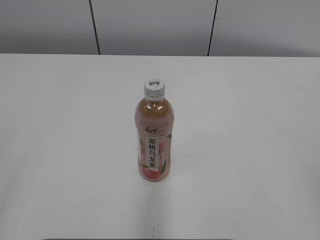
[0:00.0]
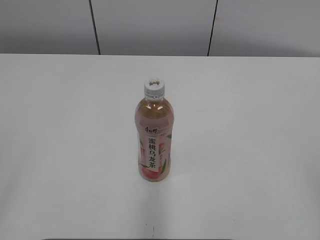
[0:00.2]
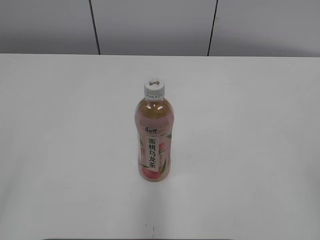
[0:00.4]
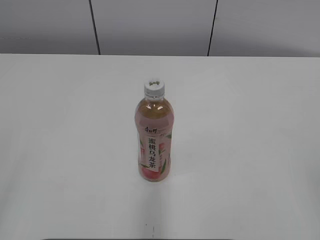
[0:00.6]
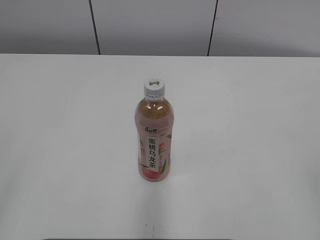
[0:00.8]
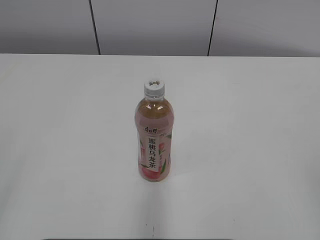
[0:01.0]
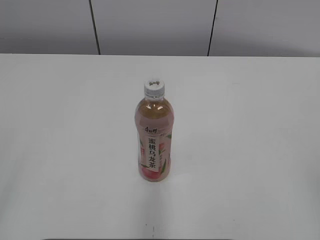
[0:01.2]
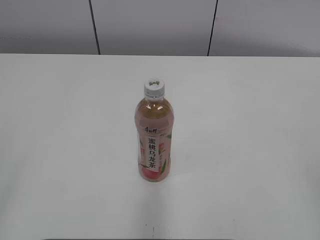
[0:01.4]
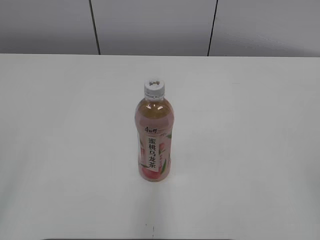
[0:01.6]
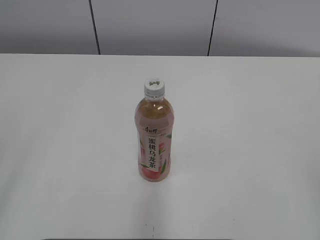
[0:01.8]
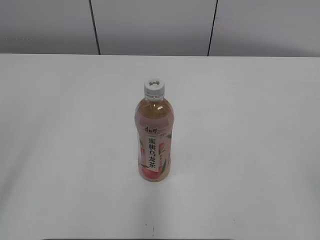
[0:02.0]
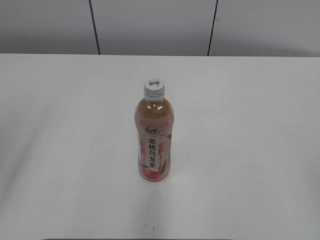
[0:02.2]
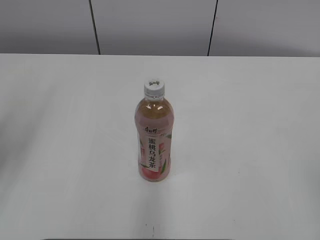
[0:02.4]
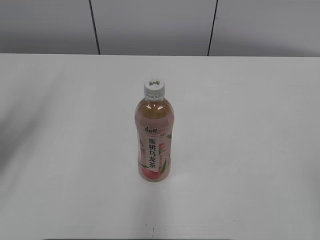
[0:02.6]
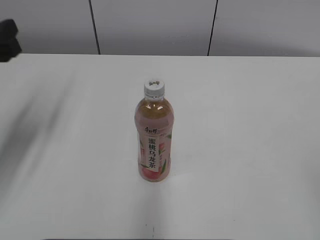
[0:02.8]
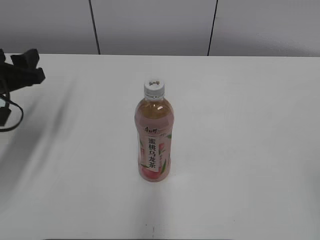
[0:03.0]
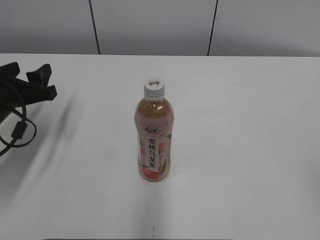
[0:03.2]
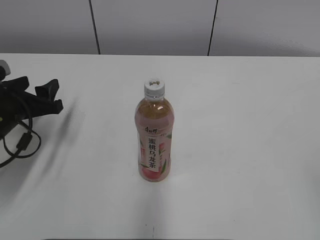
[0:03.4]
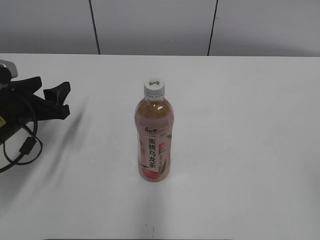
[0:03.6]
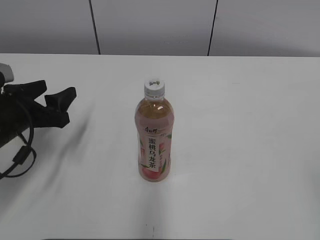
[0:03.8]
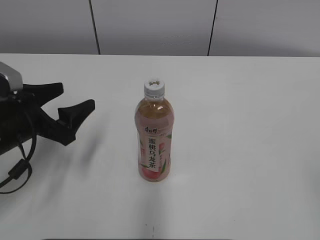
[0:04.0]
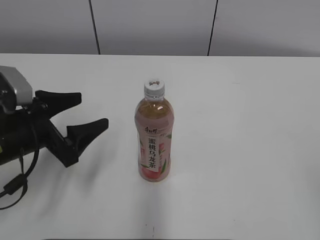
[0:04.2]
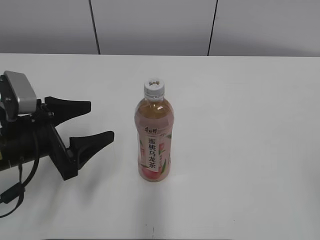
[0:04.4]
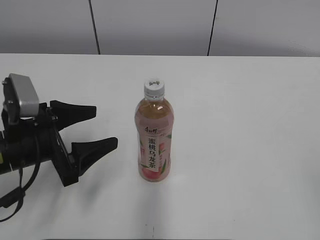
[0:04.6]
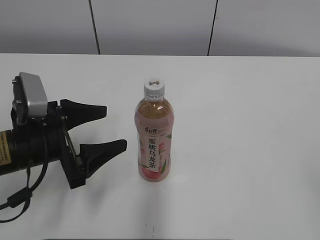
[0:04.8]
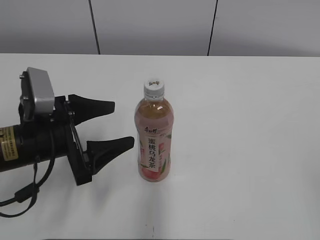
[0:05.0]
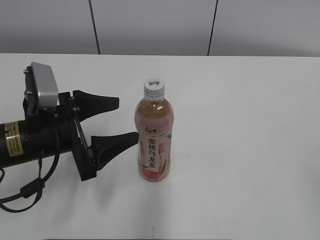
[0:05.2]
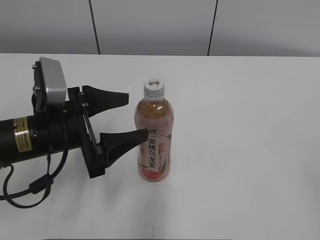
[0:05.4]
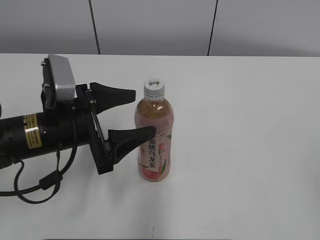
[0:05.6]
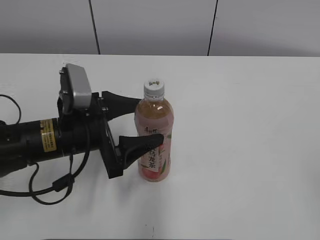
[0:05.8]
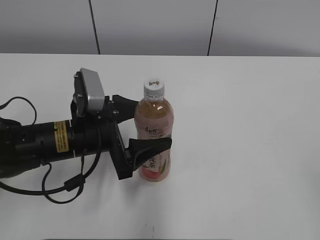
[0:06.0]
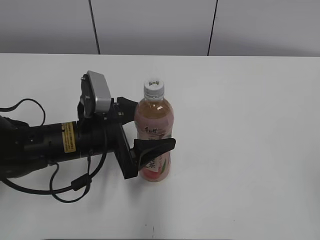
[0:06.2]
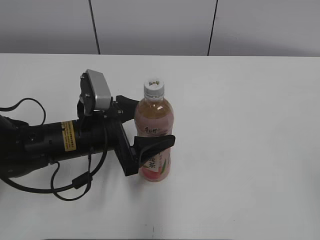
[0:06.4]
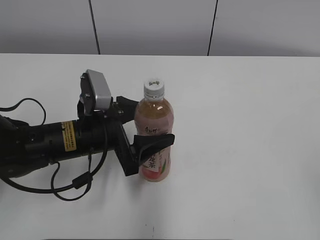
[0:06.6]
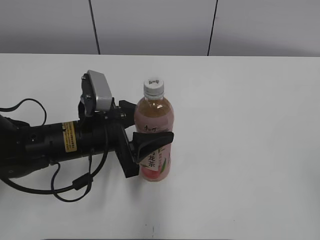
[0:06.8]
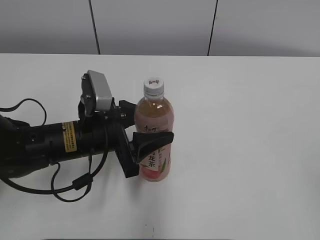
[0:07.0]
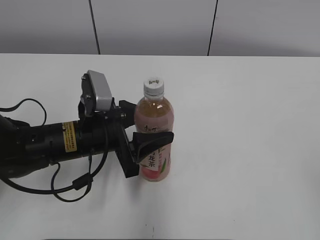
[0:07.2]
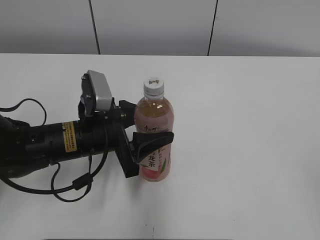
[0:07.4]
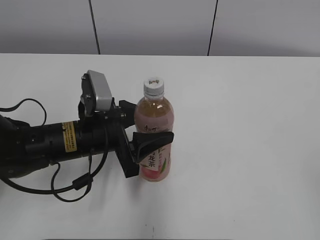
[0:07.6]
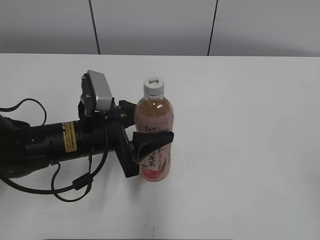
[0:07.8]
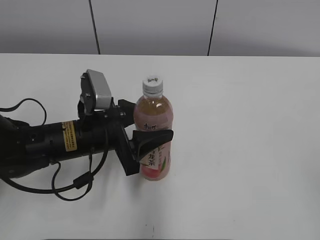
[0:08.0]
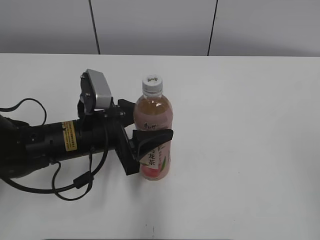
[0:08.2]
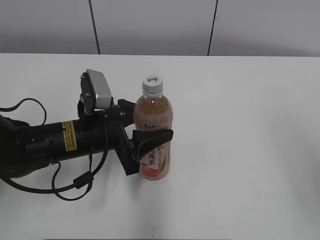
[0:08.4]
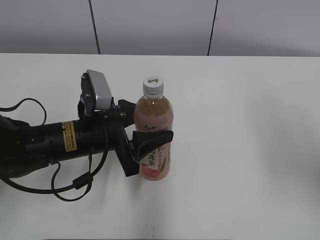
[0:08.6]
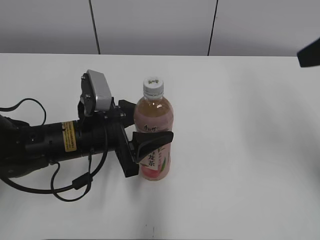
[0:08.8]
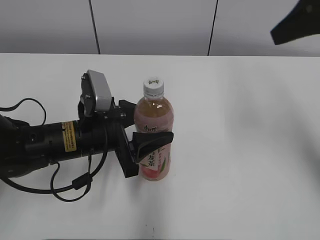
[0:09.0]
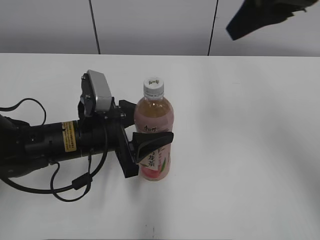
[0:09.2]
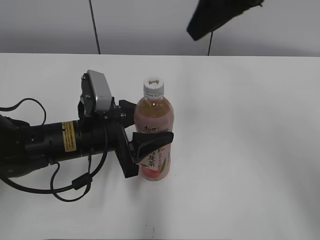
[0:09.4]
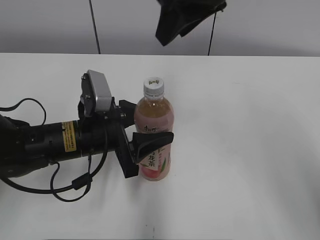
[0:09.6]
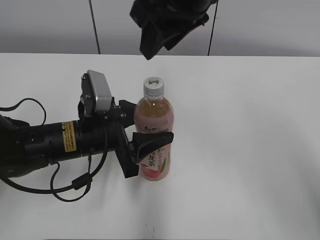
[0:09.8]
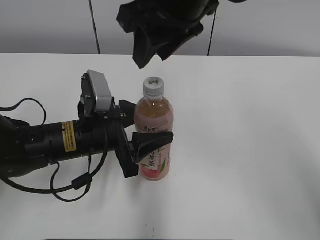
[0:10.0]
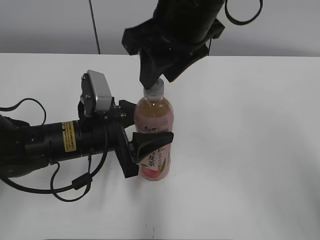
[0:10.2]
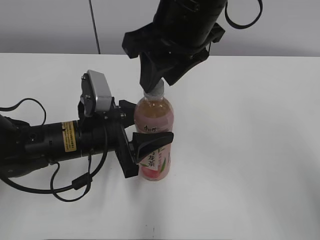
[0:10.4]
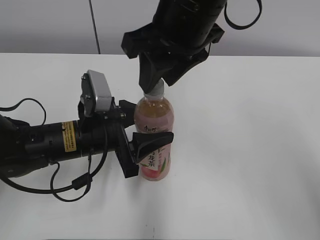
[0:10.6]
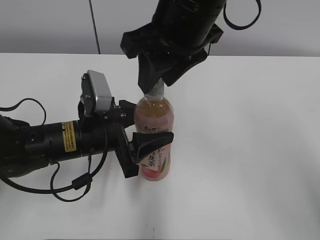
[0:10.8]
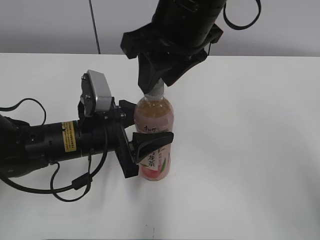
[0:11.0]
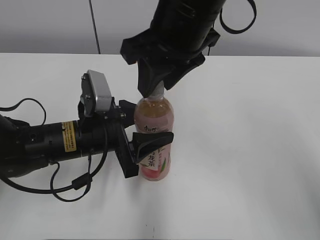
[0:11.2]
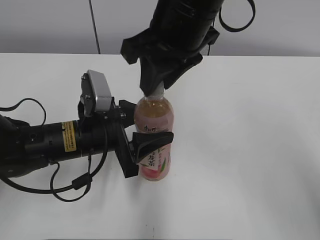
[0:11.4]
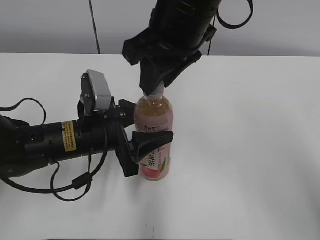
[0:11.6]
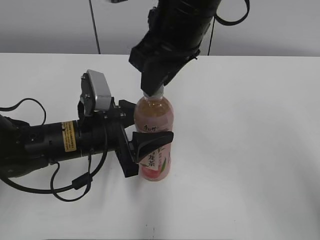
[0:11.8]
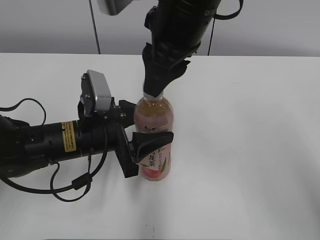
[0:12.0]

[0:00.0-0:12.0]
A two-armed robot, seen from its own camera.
Step, 0:00.0 to 0:07.0: Grab the Peach Oolong Tea with the left hand.
0:01.6 to 0:03.0: The left gripper heads forward, covering approximately 30 cm.
0:03.0 to 0:04.4: The left gripper goes roughly 10 cm to the right and backward, and opens its fingers.
0:04.4 to 0:06.0: The left gripper shifts about 10 cm to the right.
0:06.0 to 0:07.6: The left gripper closes up.
0:07.6 to 0:09.0: The right gripper goes roughly 30 cm forward, and closes its fingers.
0:09.0 to 0:10.4: The right gripper shifts roughly 20 cm to the left.

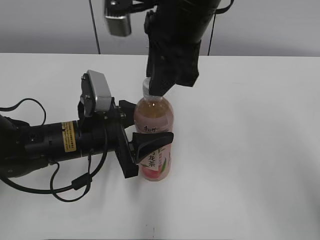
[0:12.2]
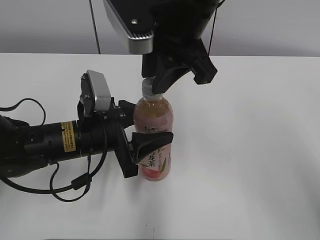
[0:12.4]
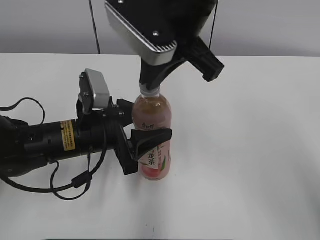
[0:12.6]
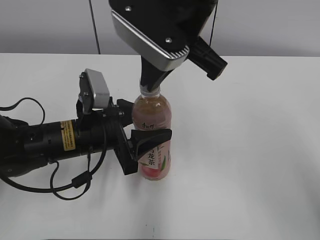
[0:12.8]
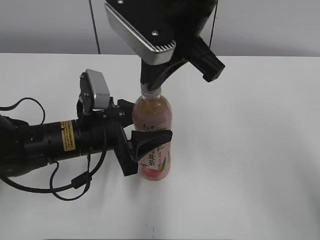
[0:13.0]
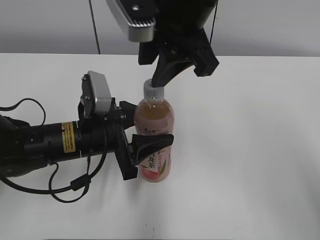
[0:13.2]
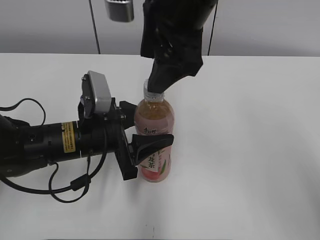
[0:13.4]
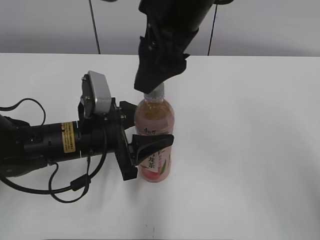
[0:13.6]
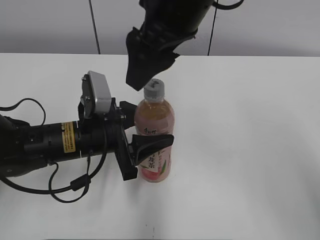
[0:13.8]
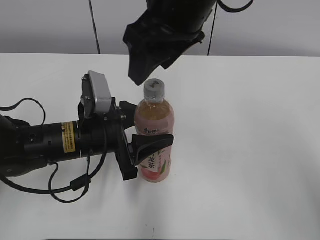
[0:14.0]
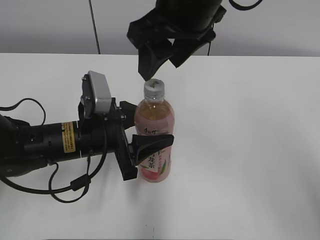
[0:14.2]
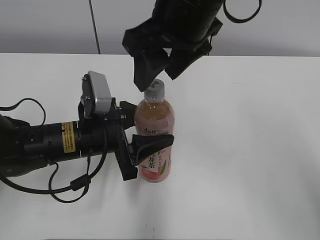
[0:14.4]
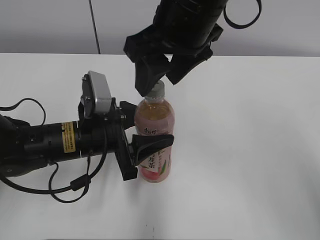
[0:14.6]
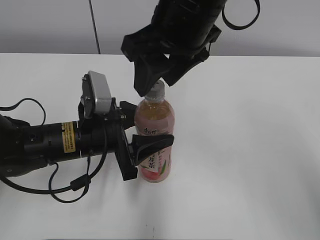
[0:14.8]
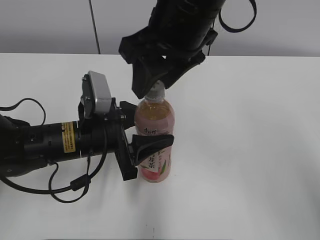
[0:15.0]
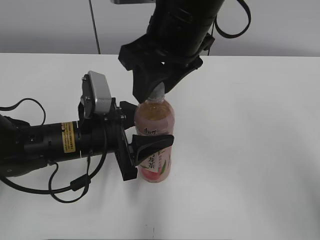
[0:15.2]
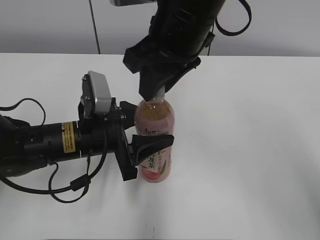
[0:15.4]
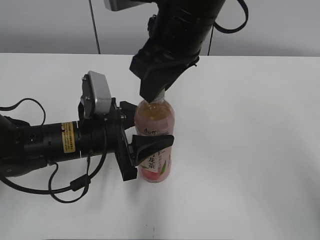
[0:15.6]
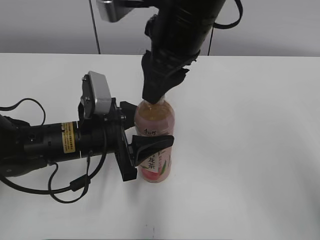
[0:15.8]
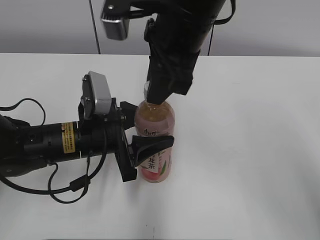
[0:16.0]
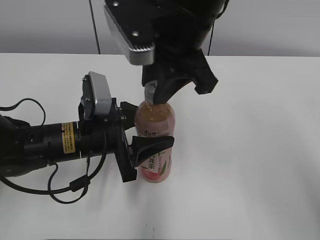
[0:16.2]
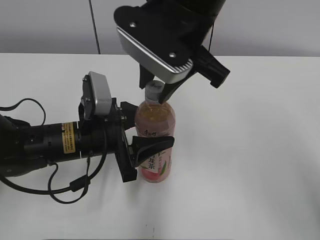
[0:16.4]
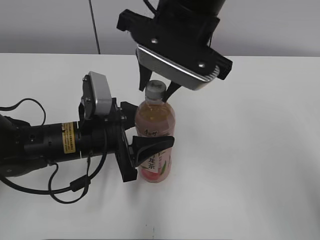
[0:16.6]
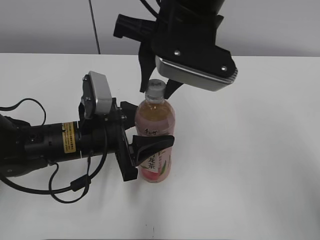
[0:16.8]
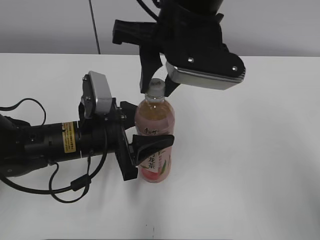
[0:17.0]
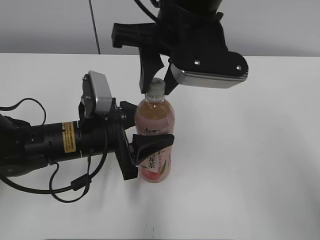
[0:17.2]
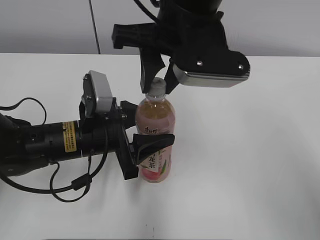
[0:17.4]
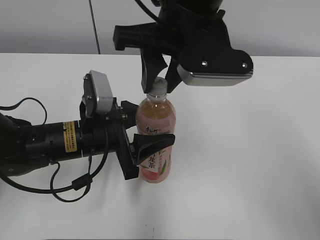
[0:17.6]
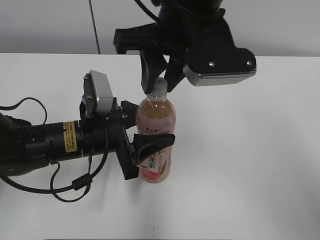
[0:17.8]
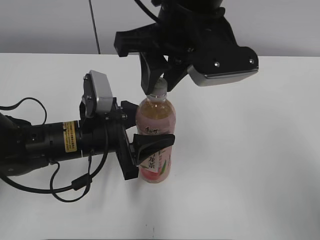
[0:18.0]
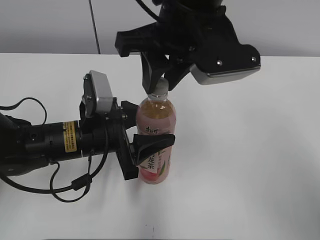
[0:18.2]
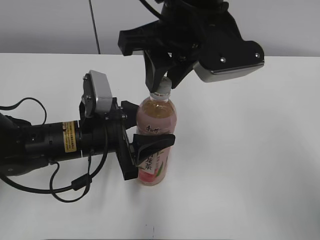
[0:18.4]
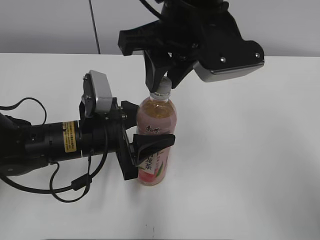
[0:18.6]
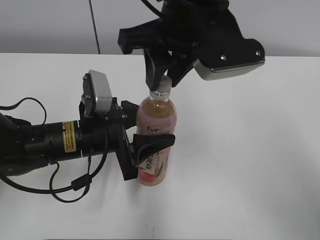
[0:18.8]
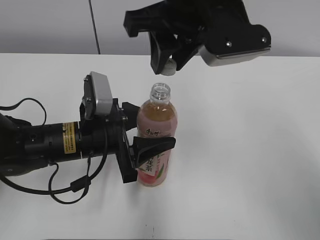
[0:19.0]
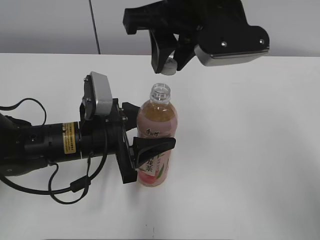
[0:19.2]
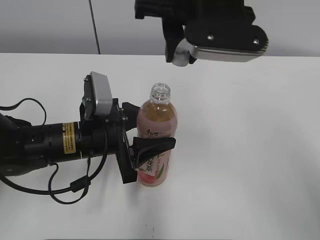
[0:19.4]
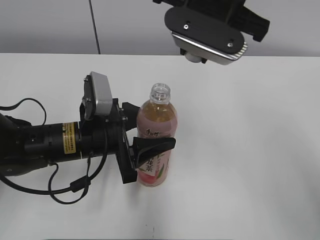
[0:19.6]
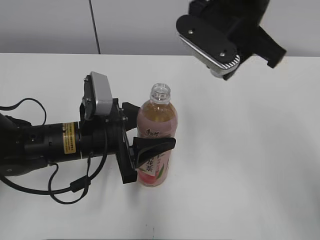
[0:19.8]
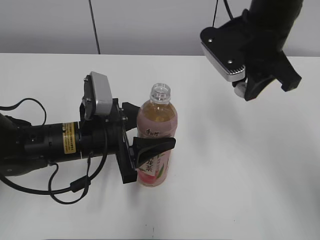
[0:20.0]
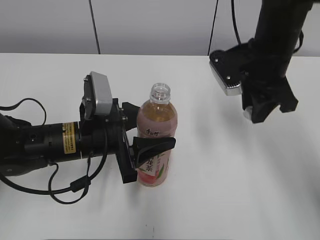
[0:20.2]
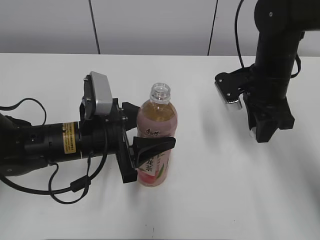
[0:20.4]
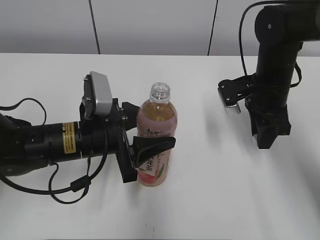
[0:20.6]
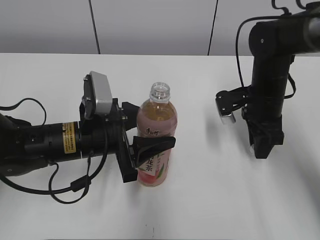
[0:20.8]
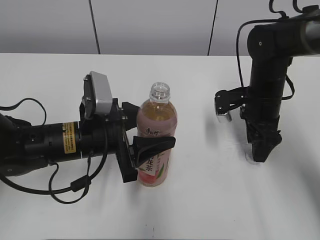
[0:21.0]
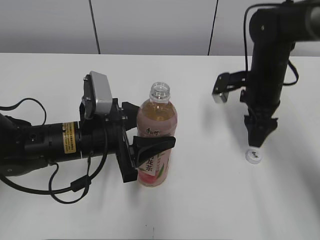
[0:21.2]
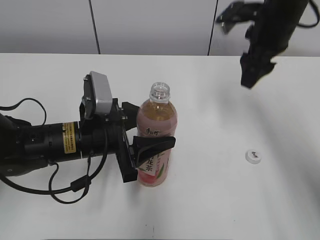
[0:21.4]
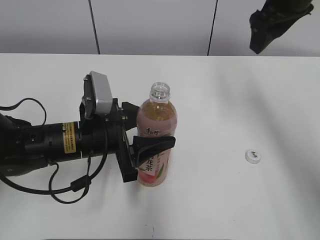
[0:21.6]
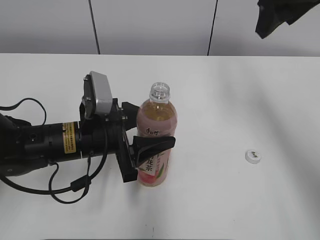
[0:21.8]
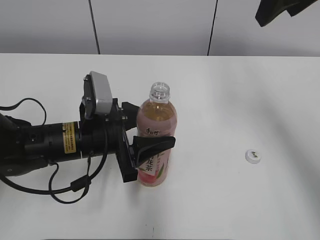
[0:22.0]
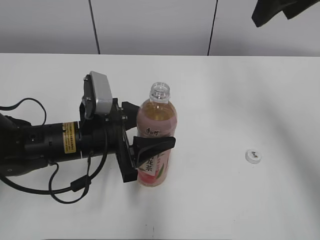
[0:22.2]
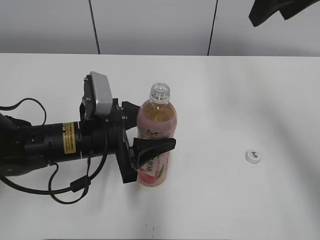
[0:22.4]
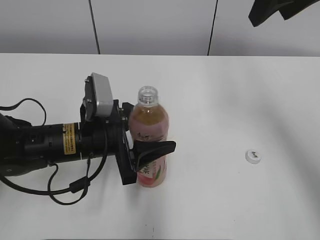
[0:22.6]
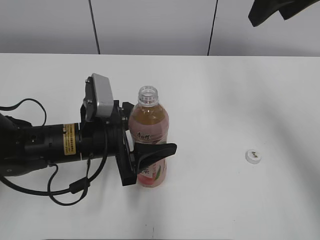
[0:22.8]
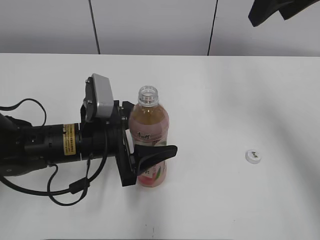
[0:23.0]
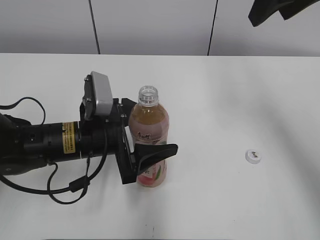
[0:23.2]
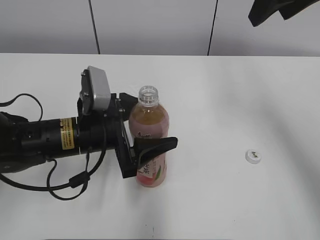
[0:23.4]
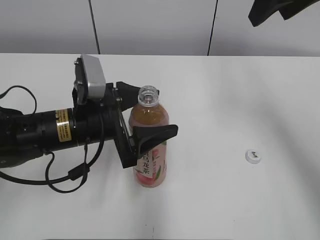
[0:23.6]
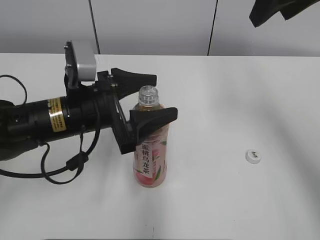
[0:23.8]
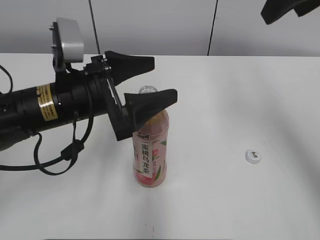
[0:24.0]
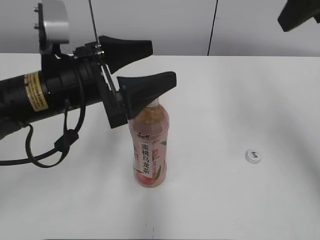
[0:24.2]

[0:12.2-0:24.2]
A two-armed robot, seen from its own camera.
Step, 0:19.0 to 0:20.8: Place the bottle cap on the right.
0:12.2 to 0:13.8: The right gripper opens.
0:15.2 to 0:16.6: The right gripper closes its fingers.
0:18.2 to 0:19.8: The right gripper travels to the right by approximately 5 cm.
0:19.8 to 0:21.2: The right gripper travels downward and to the right by roughly 20 cm, and opens up.
0:21.2 to 0:22.6: The right gripper moves upward, roughly 25 cm.
0:22.6 to 0:24.2: The left gripper goes roughly 10 cm upward, and opens. Meanwhile the right gripper goes some 5 cm backward.
